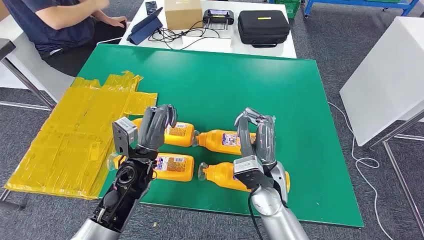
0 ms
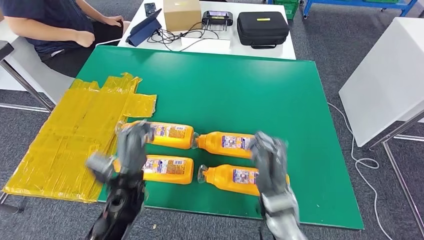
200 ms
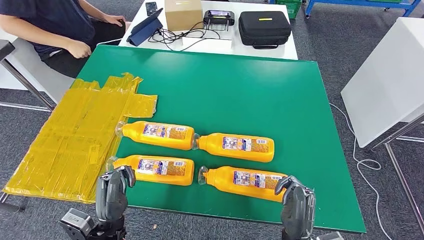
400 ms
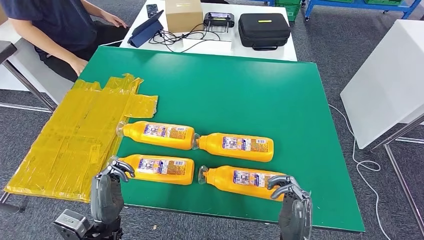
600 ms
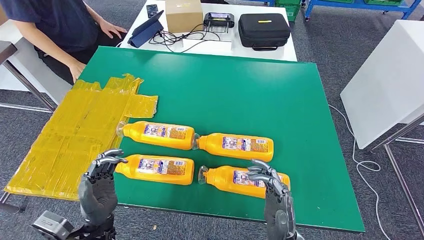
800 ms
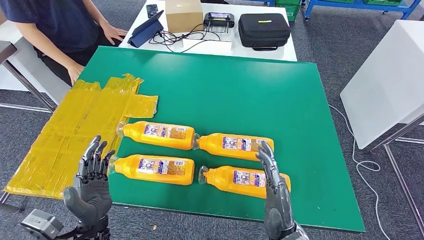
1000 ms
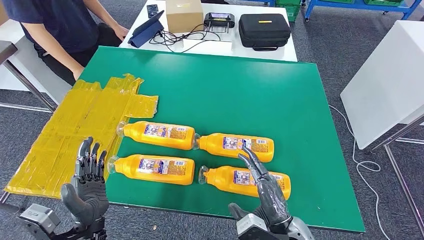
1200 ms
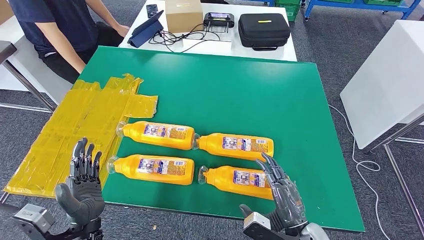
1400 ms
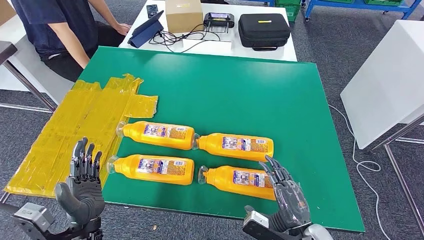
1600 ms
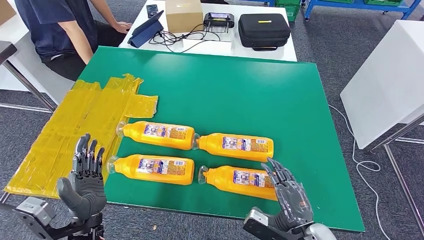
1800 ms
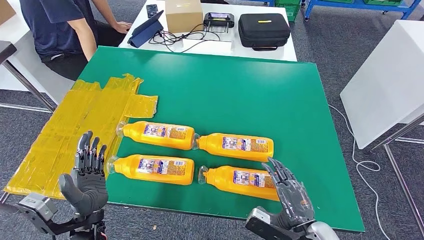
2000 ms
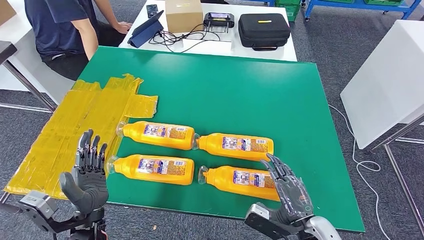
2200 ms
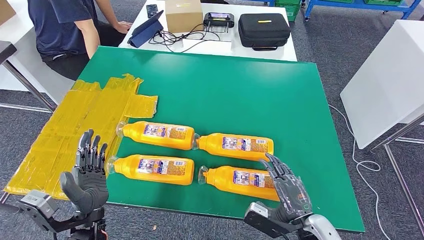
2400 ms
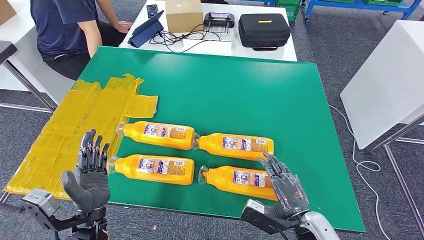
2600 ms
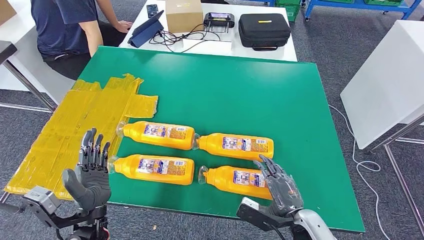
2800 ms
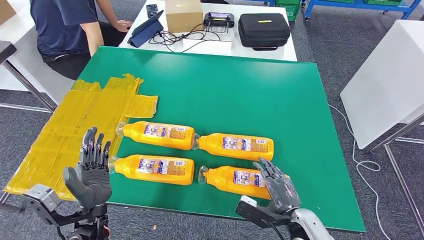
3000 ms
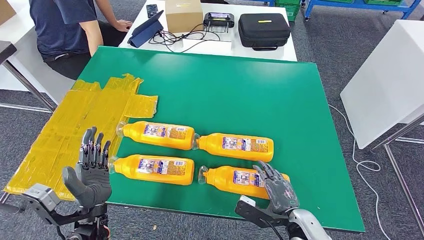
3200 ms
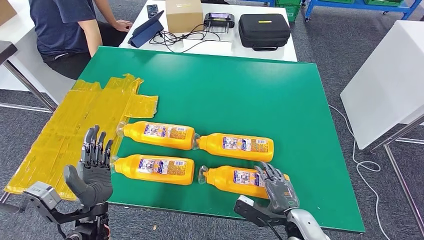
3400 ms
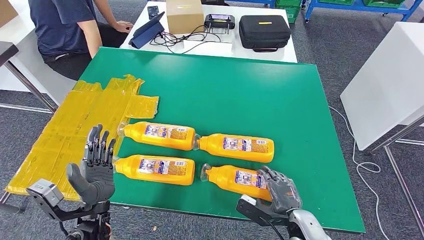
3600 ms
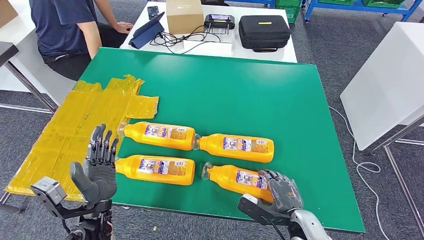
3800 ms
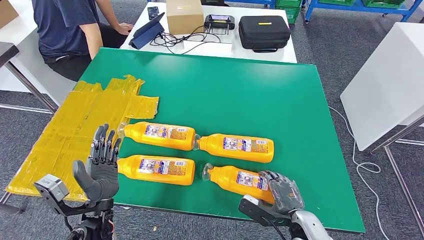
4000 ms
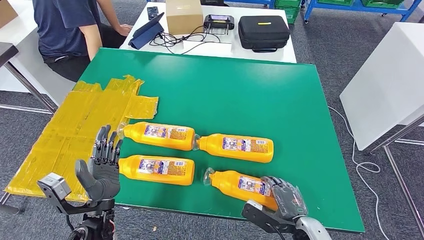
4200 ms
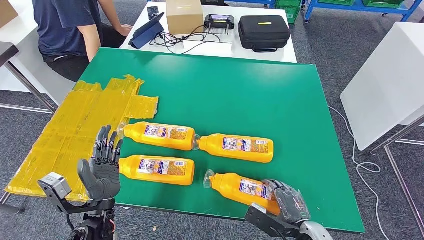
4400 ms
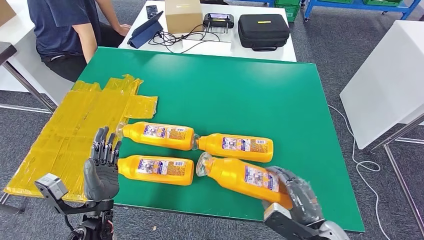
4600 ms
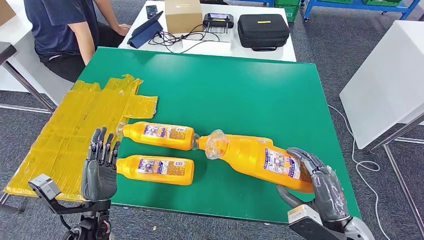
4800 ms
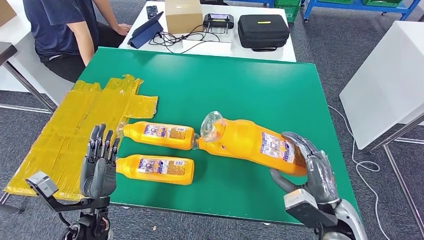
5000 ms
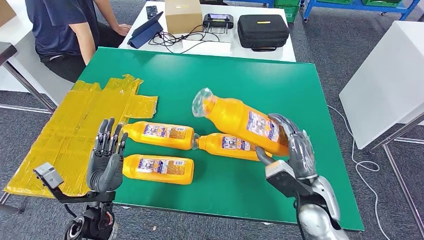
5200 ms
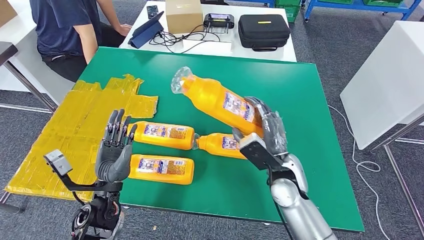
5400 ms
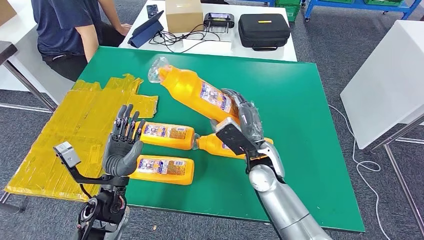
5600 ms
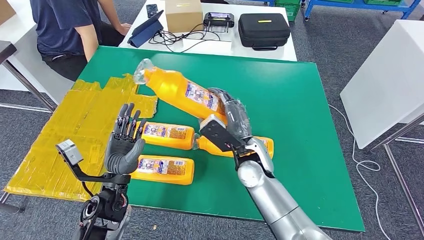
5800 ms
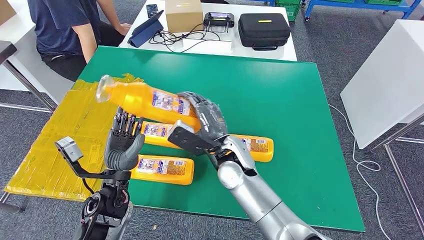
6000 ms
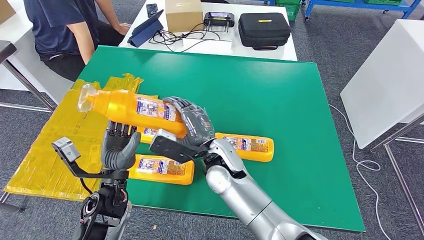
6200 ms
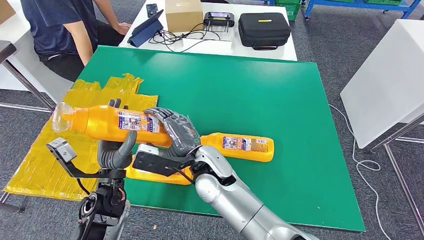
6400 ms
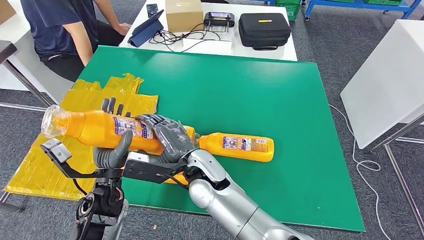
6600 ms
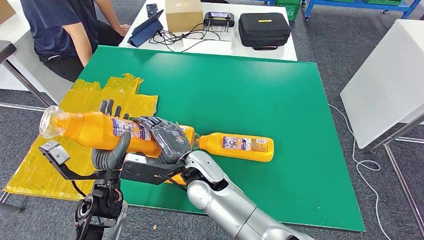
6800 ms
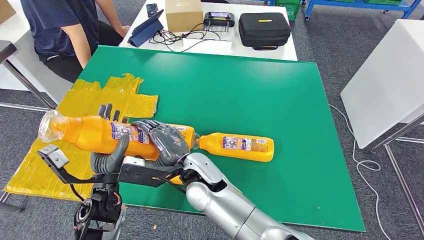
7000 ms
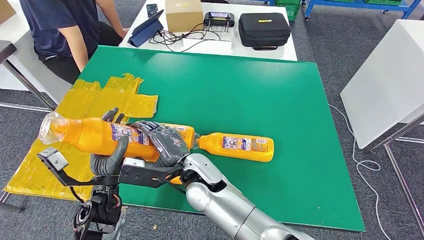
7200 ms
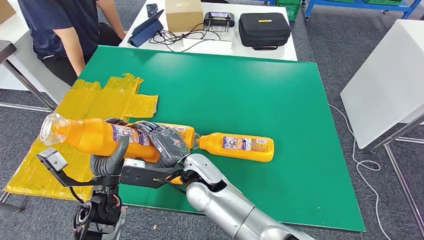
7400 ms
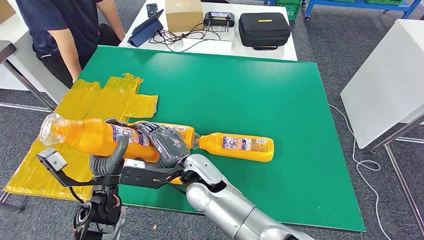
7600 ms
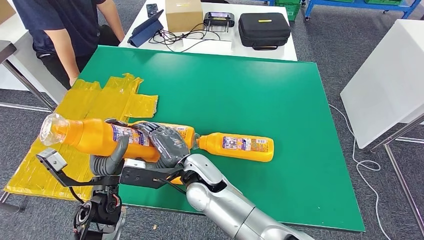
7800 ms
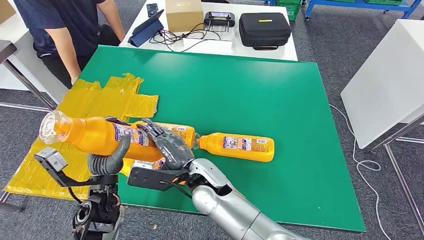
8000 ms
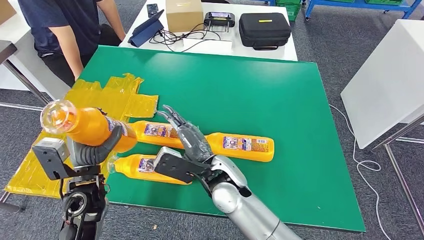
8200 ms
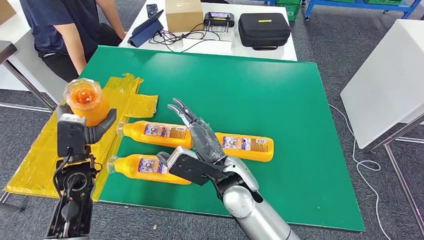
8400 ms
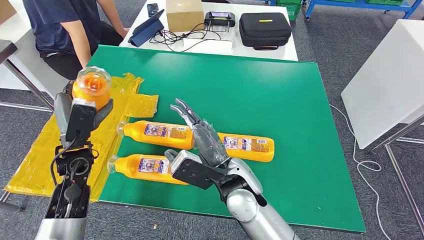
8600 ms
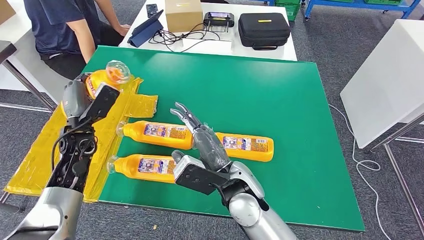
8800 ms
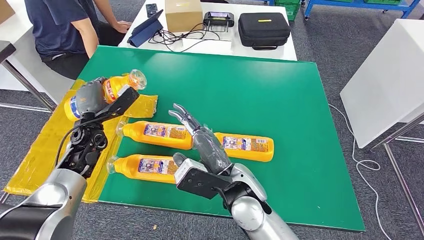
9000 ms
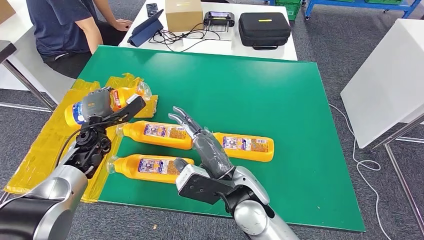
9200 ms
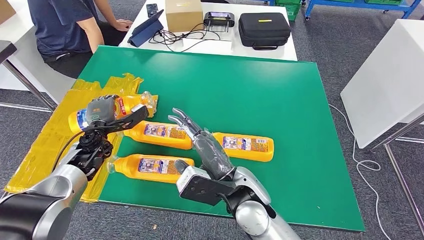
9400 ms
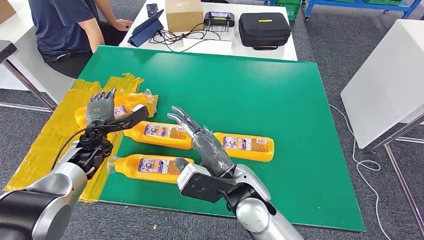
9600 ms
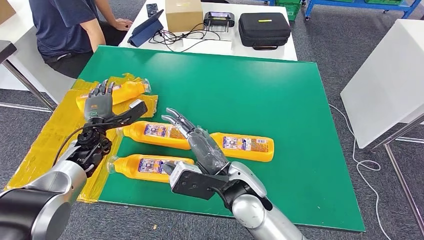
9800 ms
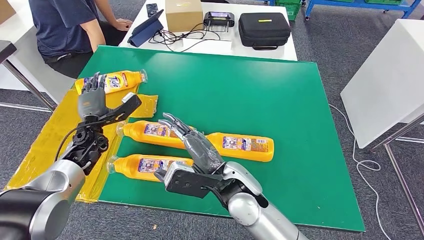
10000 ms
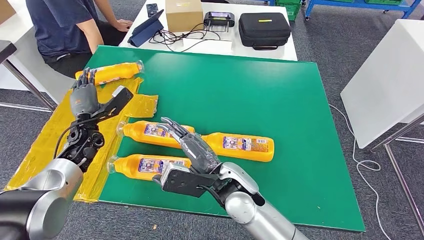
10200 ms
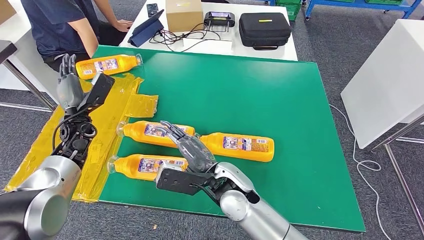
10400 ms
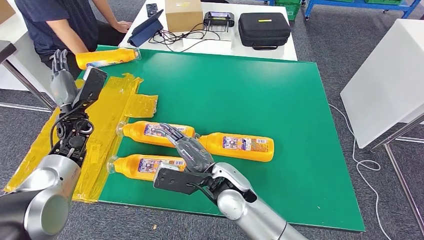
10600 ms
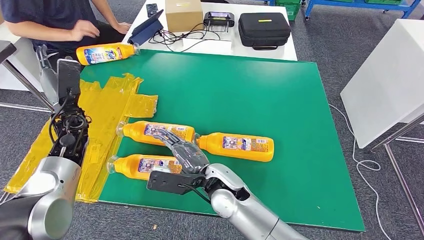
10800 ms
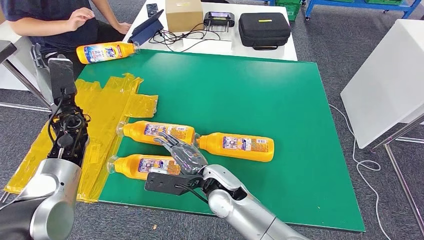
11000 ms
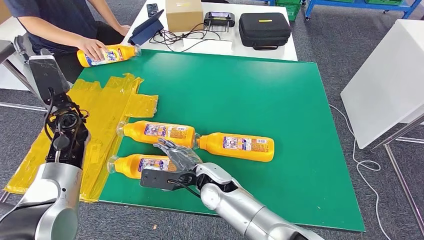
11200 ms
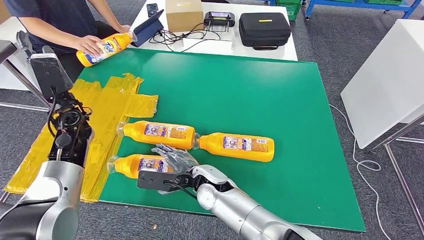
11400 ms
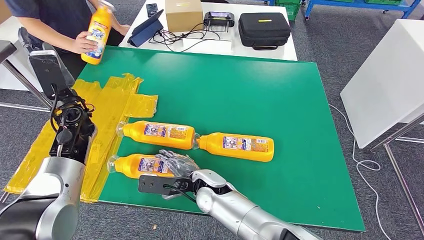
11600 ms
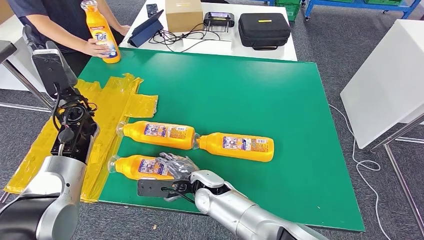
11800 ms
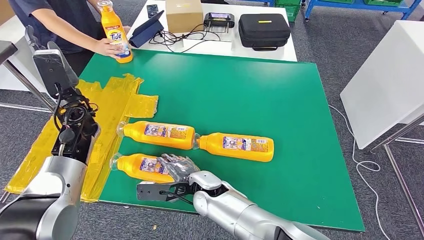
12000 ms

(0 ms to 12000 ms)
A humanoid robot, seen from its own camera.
Step, 0 ms - 7400 ms: Take the bottle from the table.
Step, 7600 ms - 10400 ms: Flip the bottle to face forward.
1600 ms - 3000 ms: The hands stay close to where they were, moving slightly.
3000 ms - 4400 ms: The hands make only small movements.

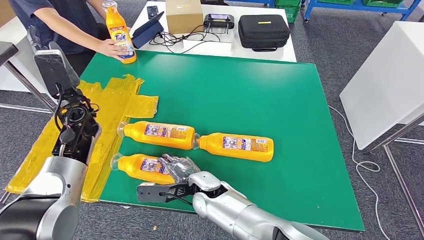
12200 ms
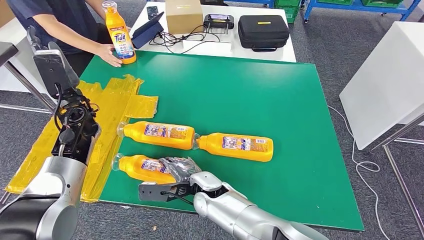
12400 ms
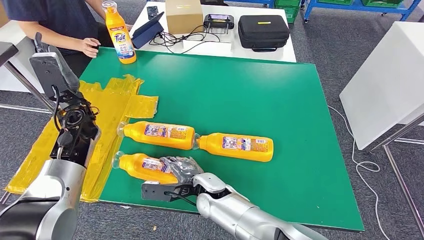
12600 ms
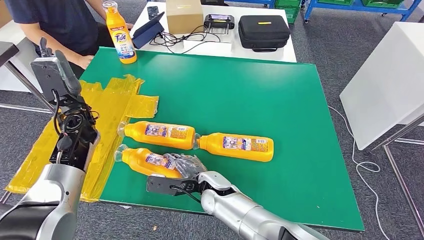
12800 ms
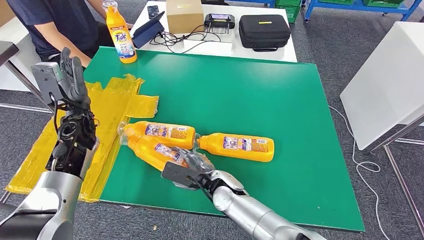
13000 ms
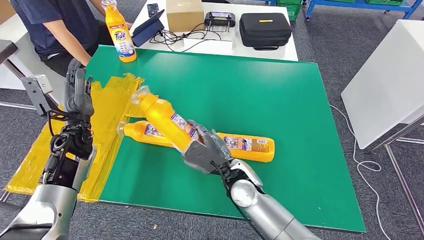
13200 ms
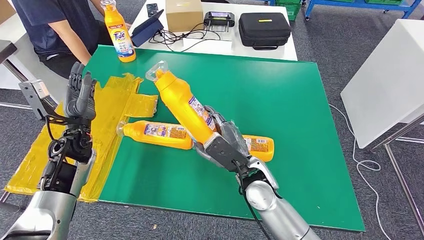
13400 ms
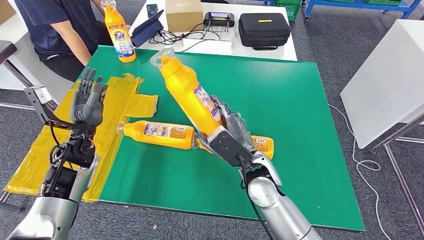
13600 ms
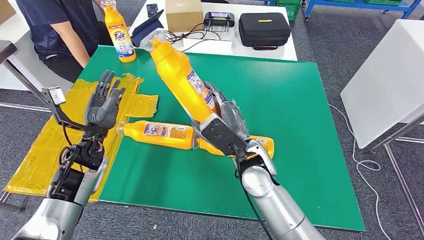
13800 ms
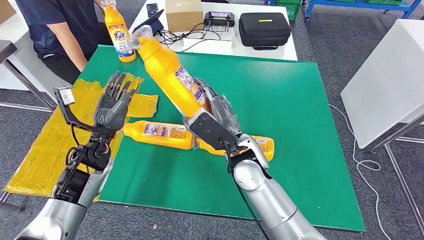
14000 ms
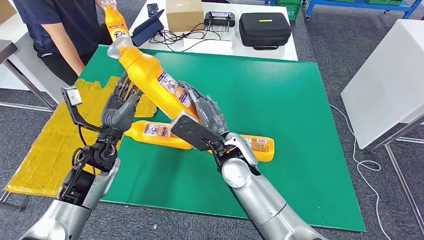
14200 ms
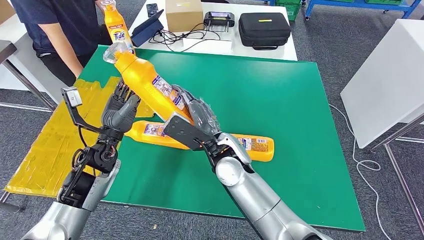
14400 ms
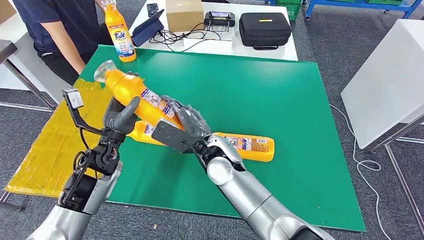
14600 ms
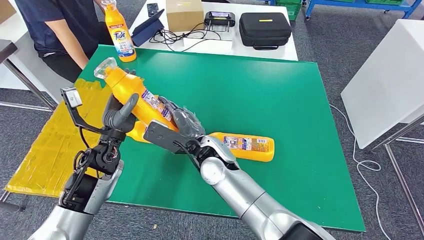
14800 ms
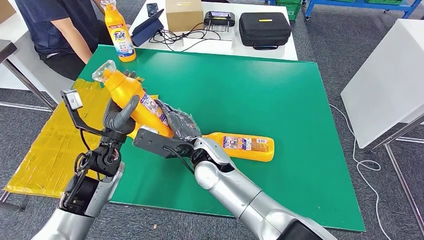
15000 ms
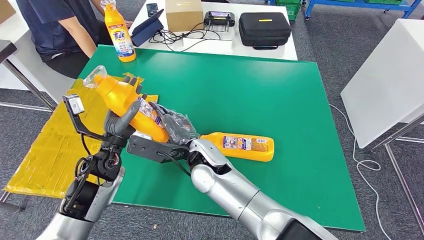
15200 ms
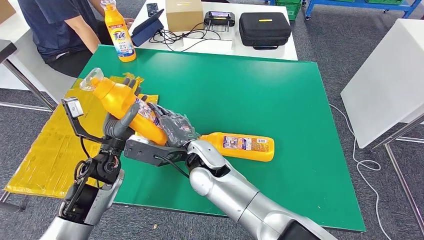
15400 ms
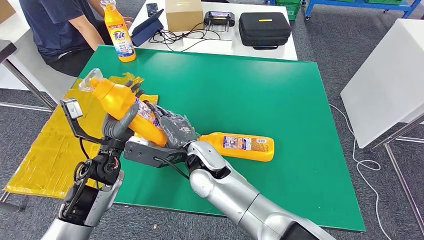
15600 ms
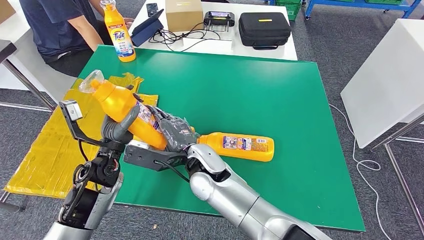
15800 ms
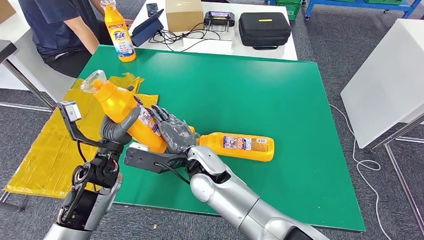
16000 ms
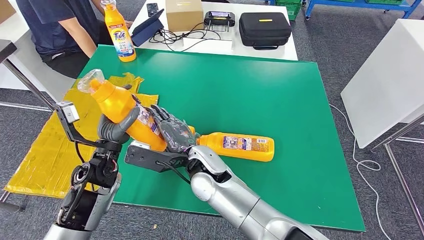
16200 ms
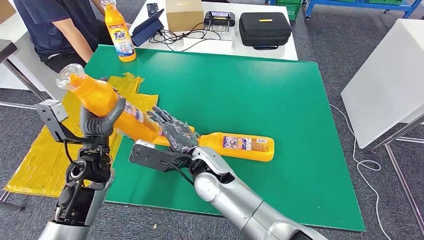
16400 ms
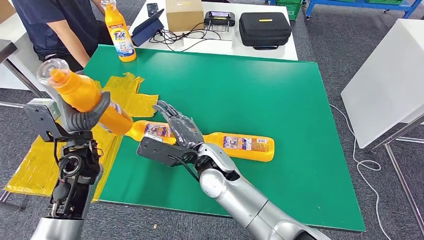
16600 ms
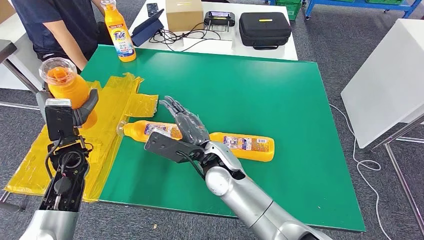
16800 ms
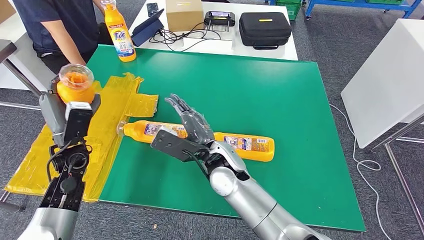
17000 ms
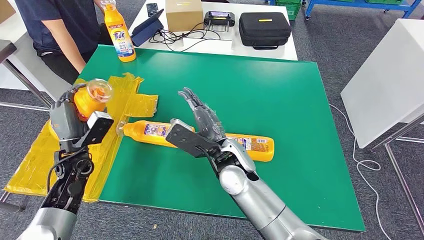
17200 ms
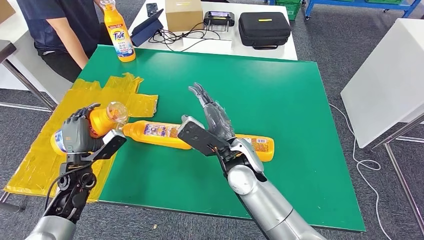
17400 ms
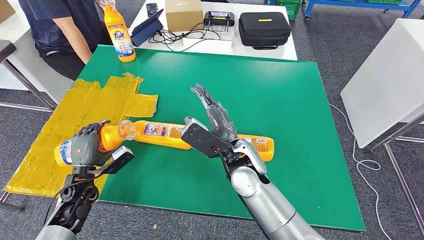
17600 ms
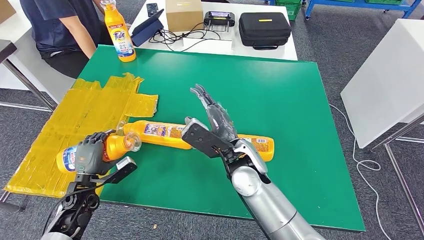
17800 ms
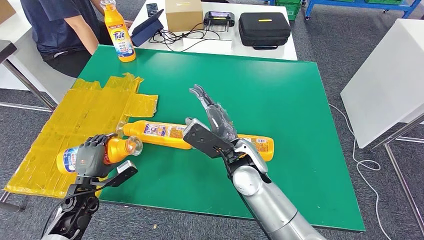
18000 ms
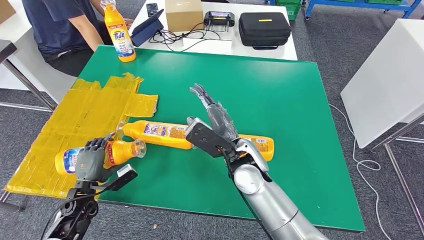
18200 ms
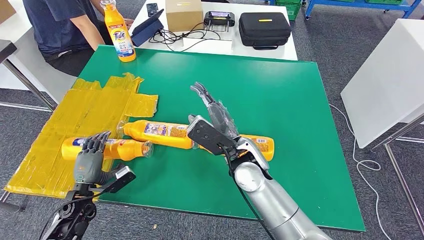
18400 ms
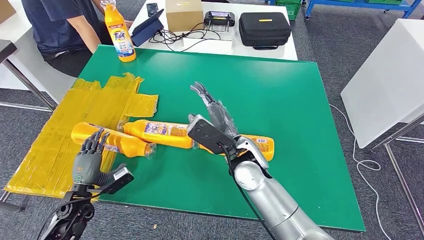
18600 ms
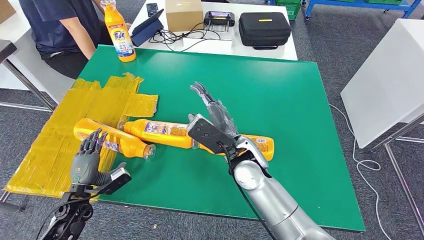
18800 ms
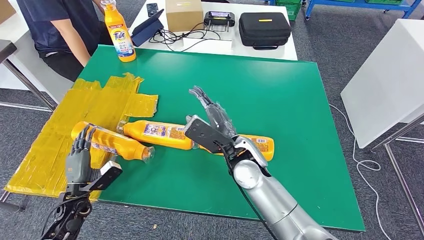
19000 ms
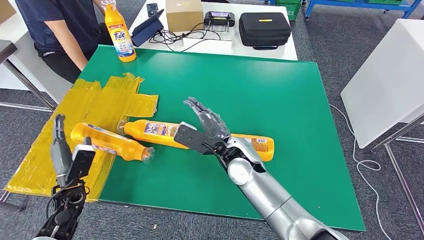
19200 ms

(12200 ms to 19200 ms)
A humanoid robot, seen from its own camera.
Step, 12200 ms - 15200 ms: Pick up the bottle from the table.
Step, 15600 ms - 18200 ms: Flip the bottle to face forward.
